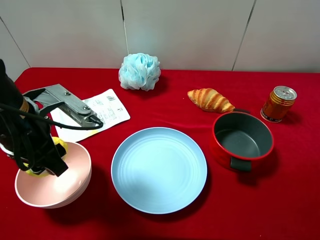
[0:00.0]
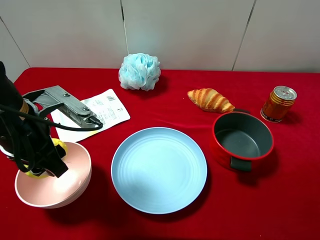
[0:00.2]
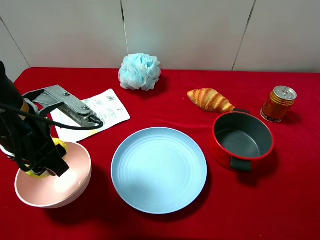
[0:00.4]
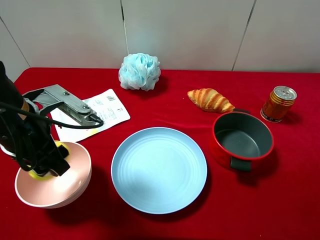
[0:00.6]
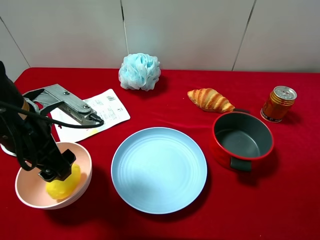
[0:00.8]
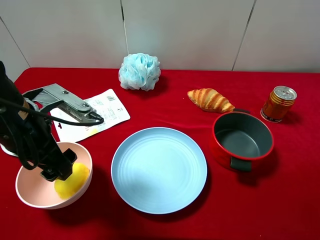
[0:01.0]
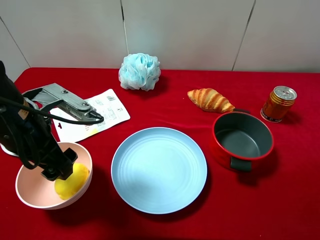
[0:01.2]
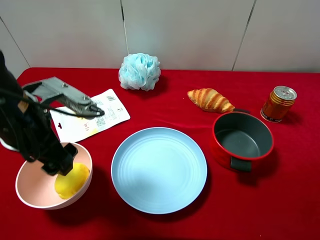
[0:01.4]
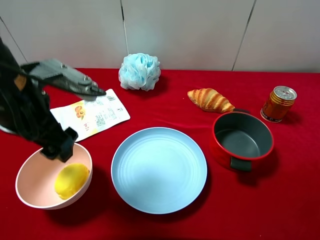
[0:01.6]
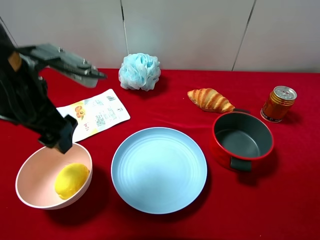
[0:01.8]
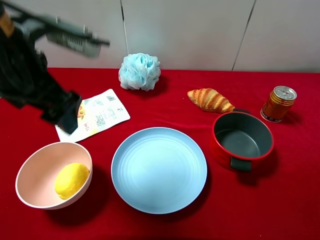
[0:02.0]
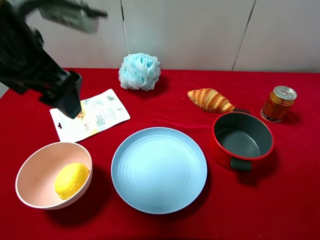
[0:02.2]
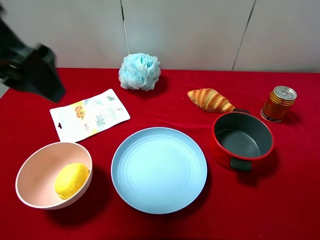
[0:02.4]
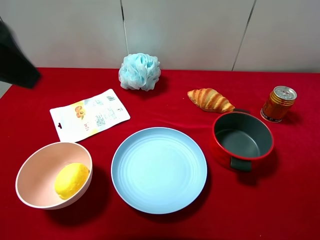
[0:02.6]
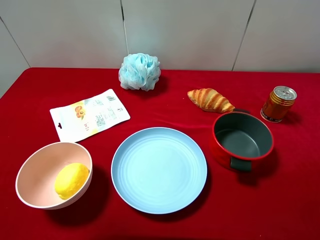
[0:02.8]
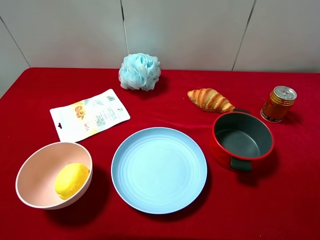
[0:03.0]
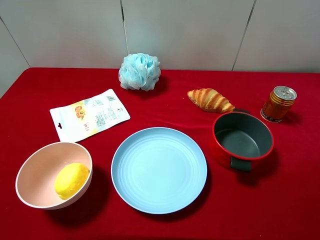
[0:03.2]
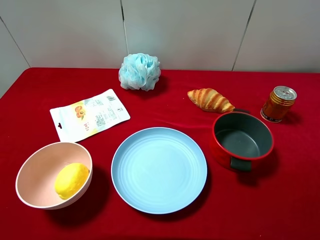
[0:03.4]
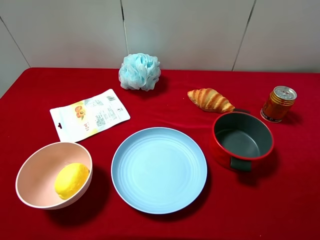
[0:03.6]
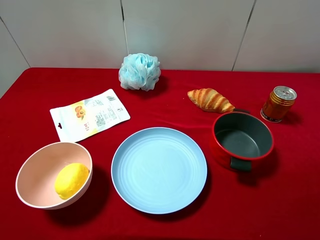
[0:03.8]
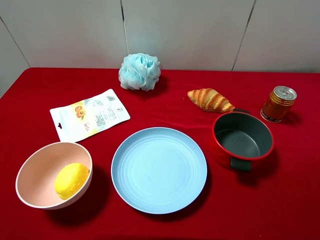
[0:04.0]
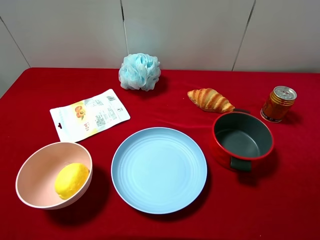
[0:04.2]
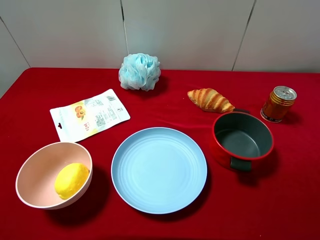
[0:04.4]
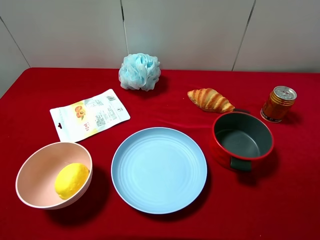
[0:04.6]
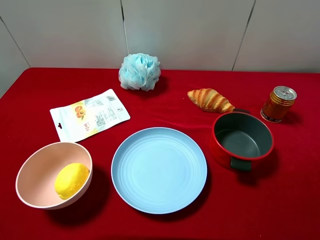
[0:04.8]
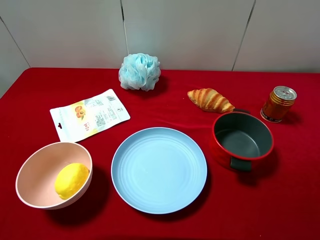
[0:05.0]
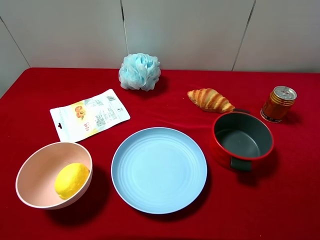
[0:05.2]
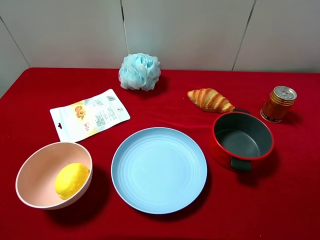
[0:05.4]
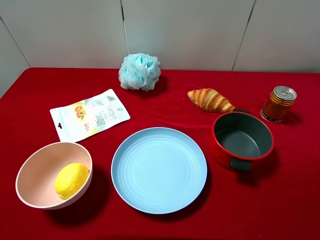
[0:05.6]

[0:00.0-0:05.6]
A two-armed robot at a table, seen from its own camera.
Task of the whole recording: pick up an item with a gripper and place it in a random container on the desktop.
0:00.0 to 0:01.4: The left gripper opens.
0:01.4 to 0:02.8: The left gripper goes roughly 20 cm upward.
